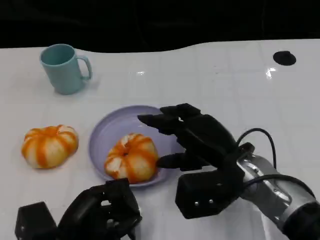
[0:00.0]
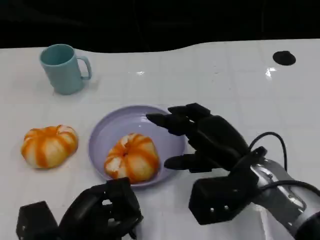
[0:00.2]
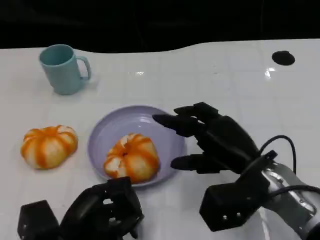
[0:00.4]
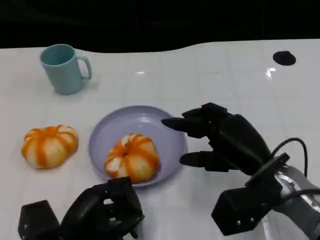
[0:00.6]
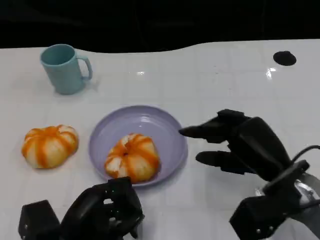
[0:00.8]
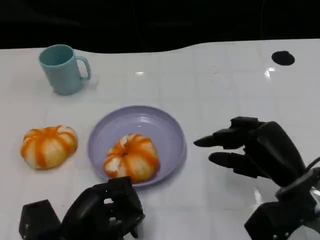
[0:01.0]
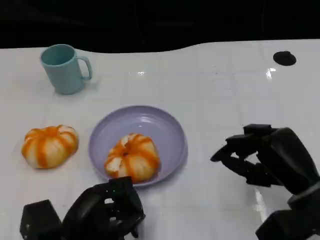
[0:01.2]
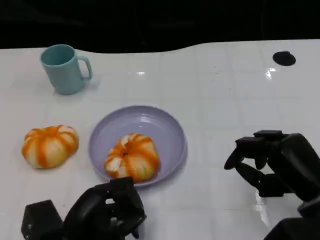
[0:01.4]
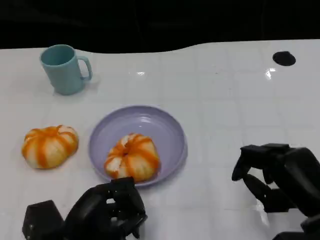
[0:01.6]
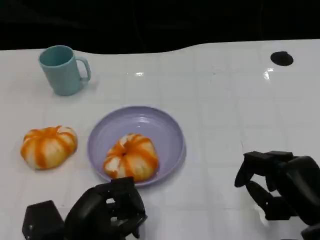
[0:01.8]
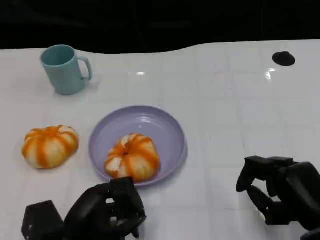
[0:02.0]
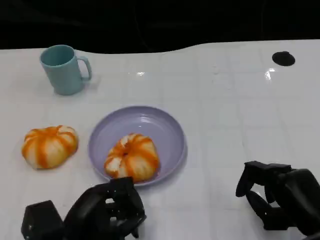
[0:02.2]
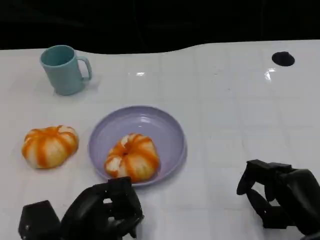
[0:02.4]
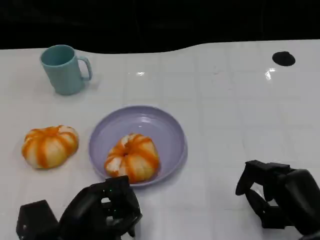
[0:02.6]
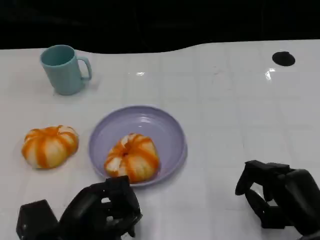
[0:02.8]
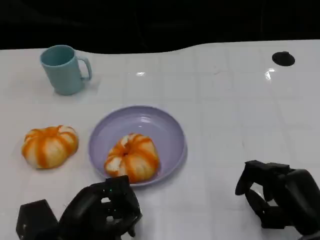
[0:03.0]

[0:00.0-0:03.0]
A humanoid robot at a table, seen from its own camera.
Task of the whole recording: Grasp the bread from the table and place it into the plate.
0:00.0 to 0:01.6: The right hand shifts some 15 cm to the right and backward.
0:01.6 to 0:03.0: The hands stay close to where they were, moving slightly.

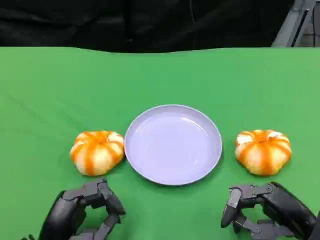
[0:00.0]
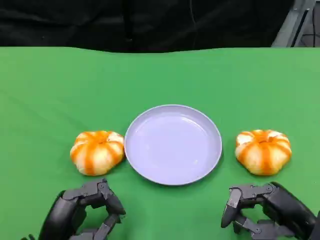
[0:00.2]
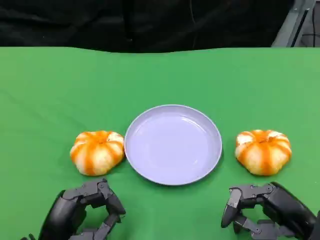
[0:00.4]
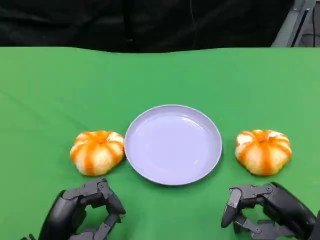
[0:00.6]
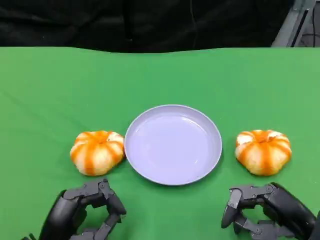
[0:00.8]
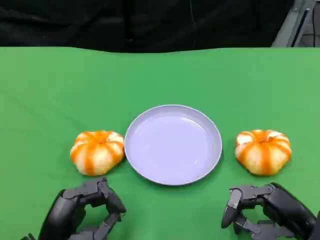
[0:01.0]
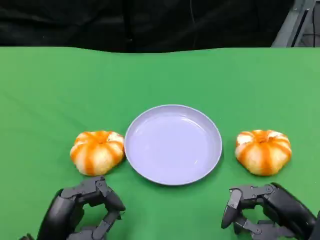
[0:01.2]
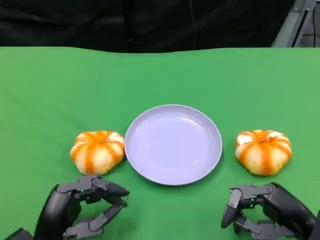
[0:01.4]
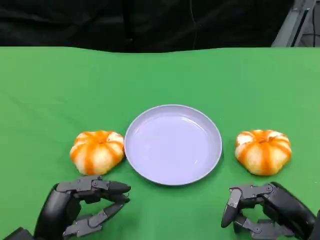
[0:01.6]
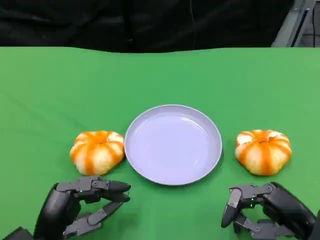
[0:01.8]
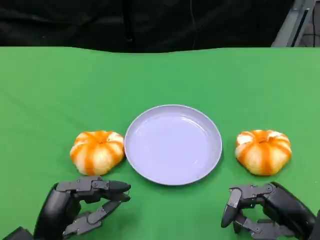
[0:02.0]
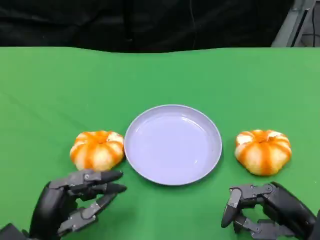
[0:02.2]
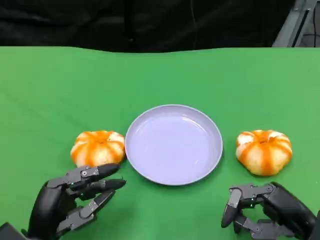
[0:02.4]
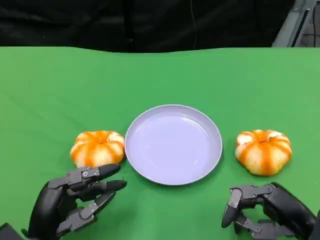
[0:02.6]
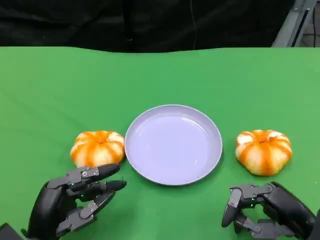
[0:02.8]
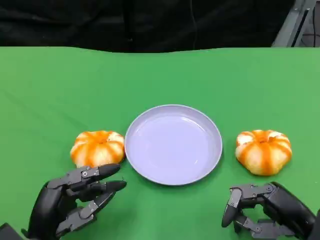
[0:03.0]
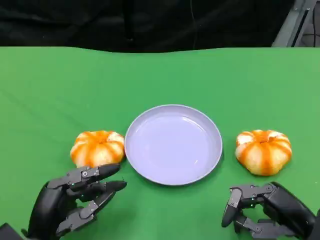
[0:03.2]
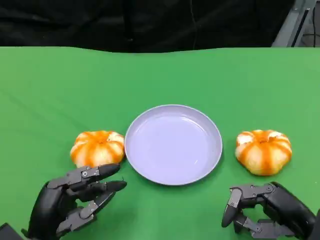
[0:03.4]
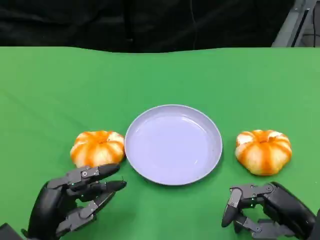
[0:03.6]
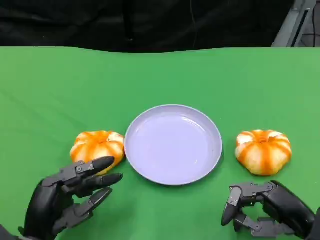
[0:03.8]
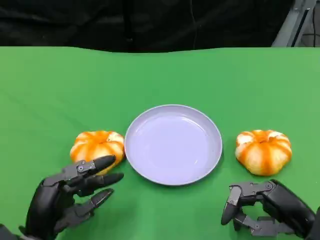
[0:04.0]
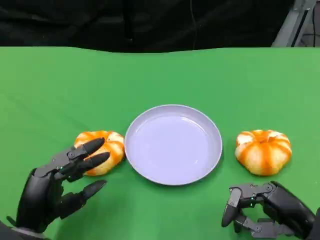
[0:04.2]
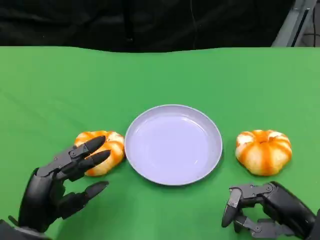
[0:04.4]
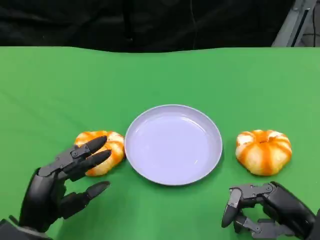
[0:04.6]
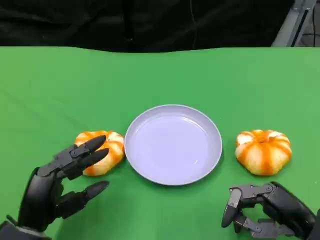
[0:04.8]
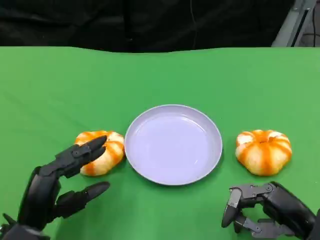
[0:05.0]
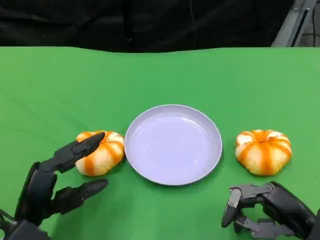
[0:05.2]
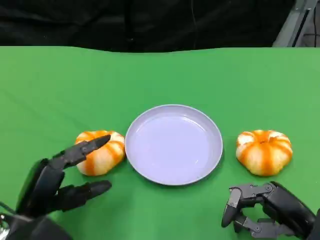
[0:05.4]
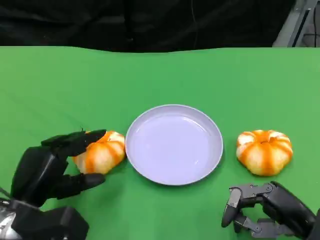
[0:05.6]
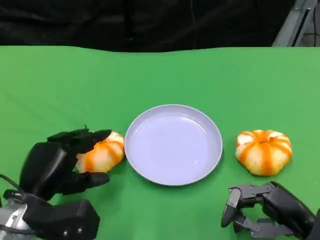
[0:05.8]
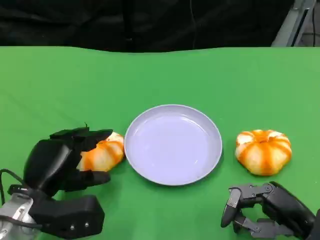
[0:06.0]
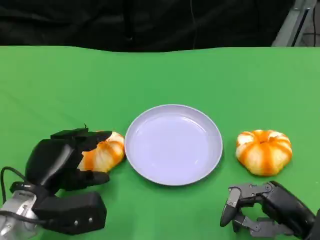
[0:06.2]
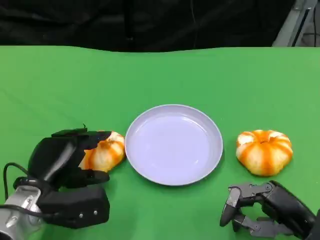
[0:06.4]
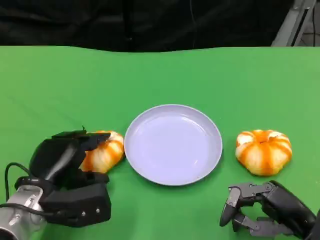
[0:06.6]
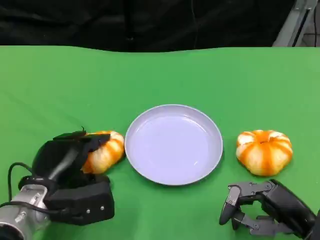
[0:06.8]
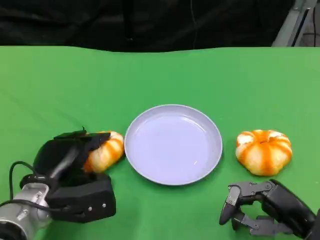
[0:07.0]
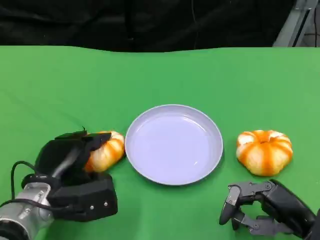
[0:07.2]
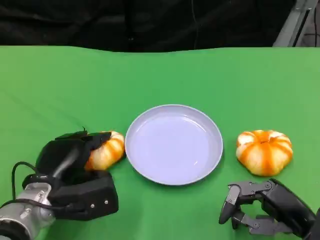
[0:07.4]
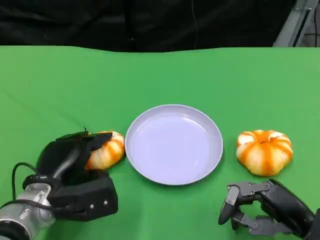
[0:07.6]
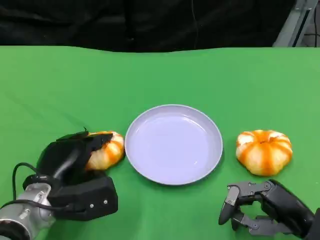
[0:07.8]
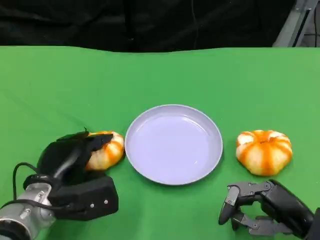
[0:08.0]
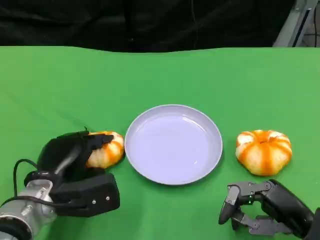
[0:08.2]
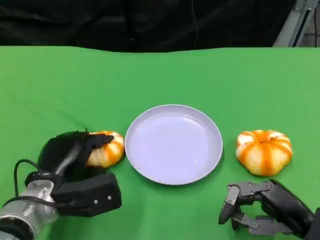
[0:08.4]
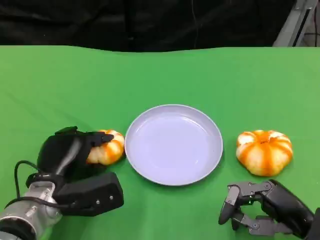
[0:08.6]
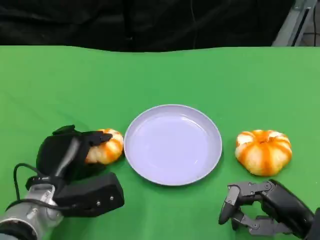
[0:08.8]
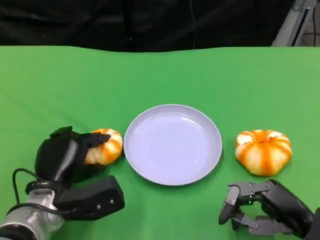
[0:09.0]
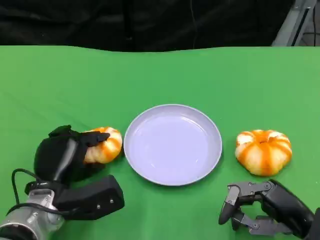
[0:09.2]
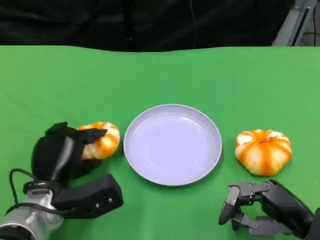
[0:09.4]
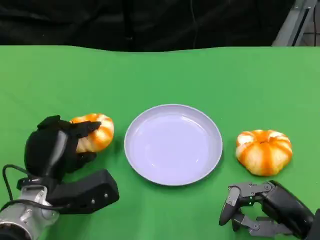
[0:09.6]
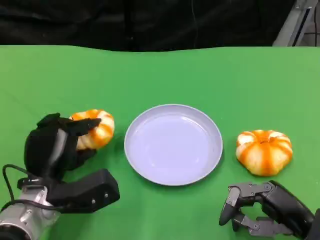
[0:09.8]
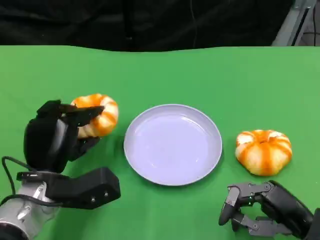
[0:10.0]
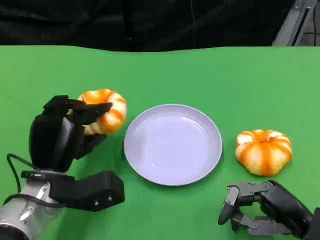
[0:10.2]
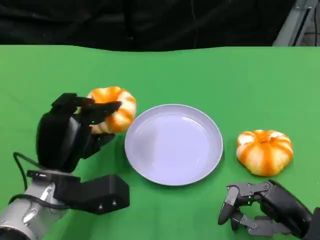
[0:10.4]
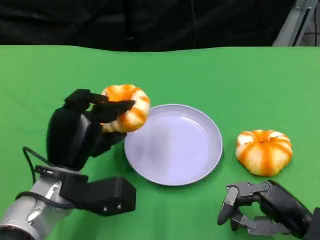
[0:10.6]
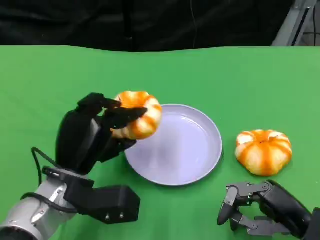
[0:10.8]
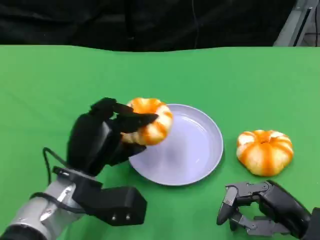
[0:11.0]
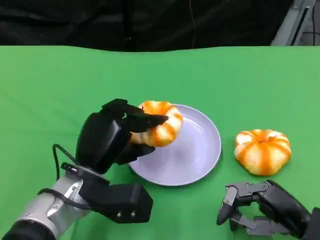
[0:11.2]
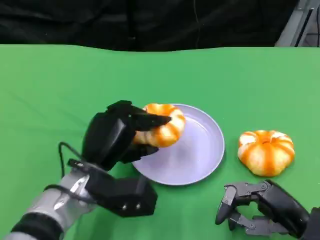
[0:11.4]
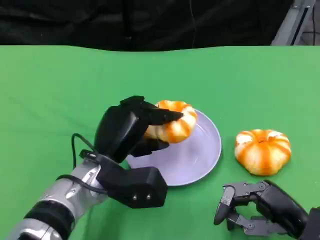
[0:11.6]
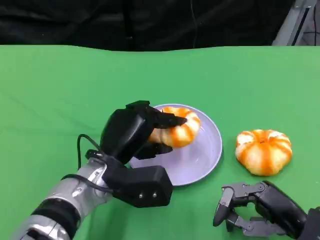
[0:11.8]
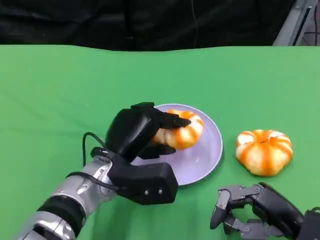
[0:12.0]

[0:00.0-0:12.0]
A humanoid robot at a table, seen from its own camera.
Task of the whole recording: Grasp the bread from the table and place it into the plate.
0:00.0 to 0:01.6: Both hands stay about where they are.
0:01.6 to 0:04.4: The hands move only a little.
0:04.4 to 0:06.0: The left hand heads forward, covering some 5 cm.
0:06.0 to 0:09.0: The hands move only a little.
0:10.4 to 0:12.0: The left hand shifts about 5 cm to the right.

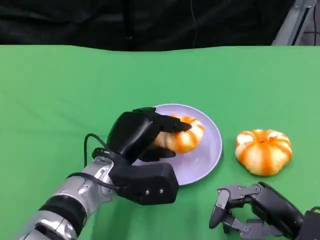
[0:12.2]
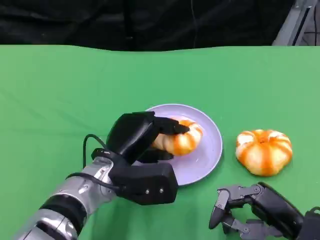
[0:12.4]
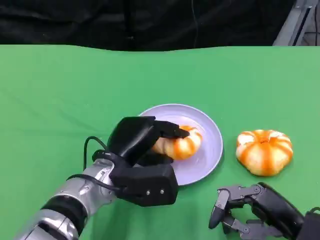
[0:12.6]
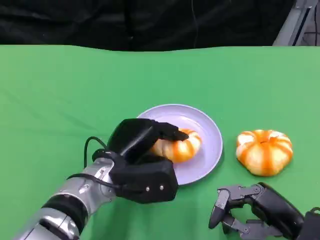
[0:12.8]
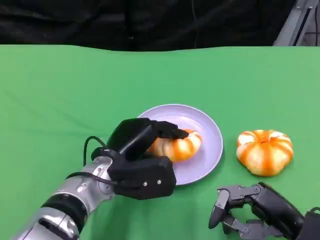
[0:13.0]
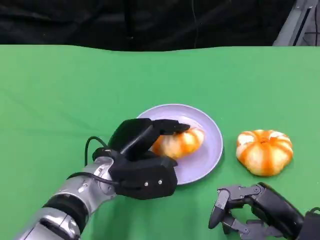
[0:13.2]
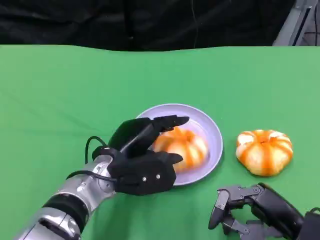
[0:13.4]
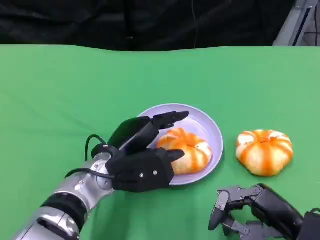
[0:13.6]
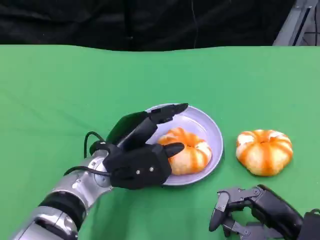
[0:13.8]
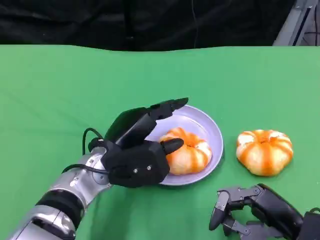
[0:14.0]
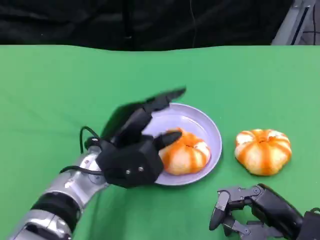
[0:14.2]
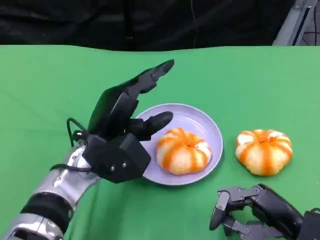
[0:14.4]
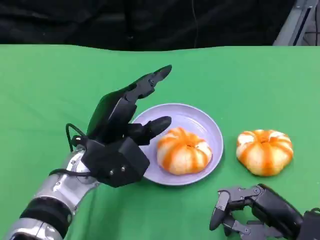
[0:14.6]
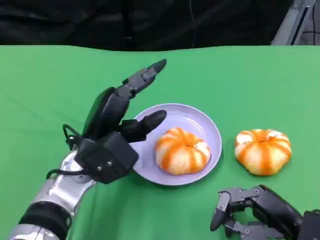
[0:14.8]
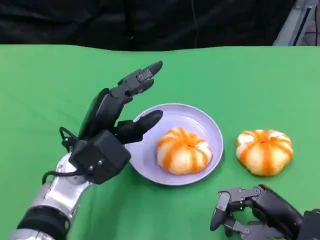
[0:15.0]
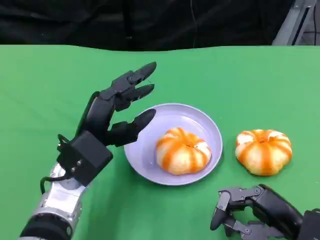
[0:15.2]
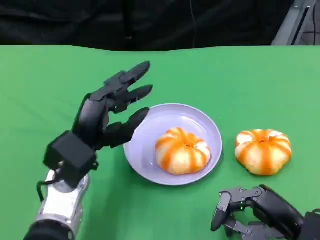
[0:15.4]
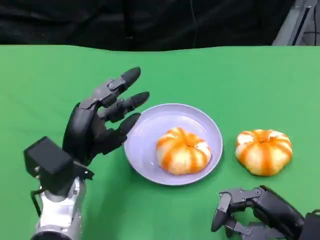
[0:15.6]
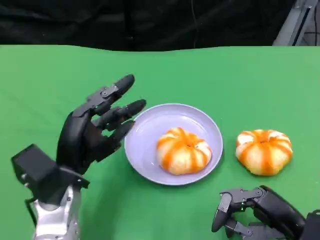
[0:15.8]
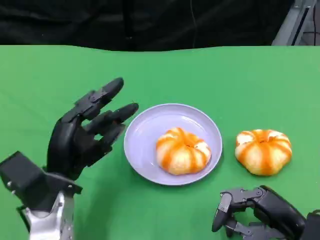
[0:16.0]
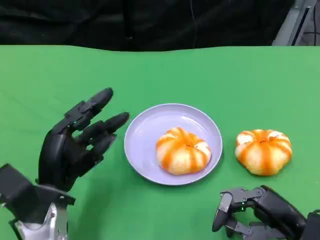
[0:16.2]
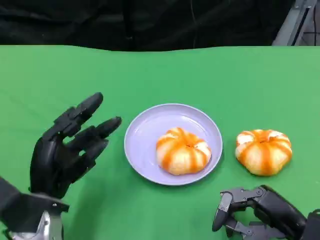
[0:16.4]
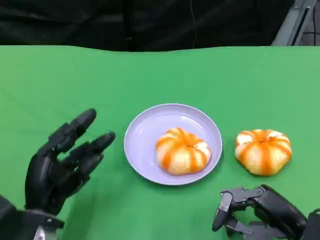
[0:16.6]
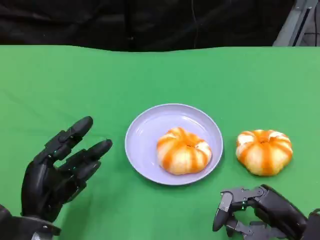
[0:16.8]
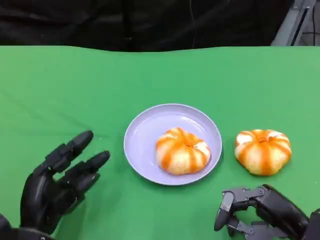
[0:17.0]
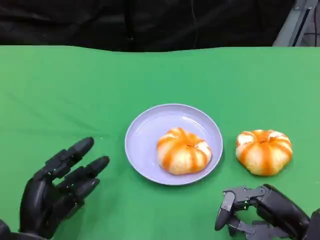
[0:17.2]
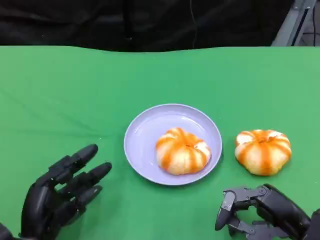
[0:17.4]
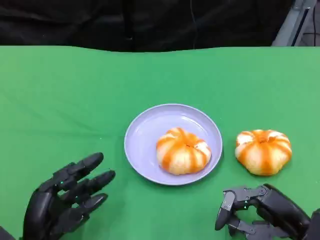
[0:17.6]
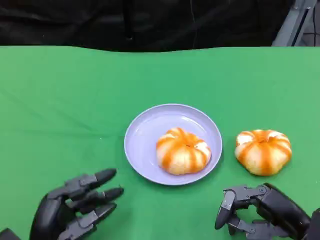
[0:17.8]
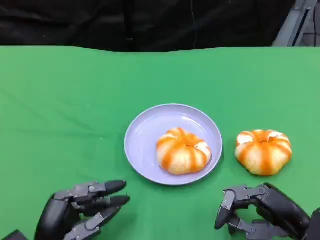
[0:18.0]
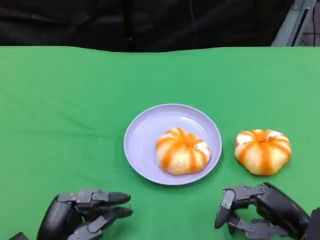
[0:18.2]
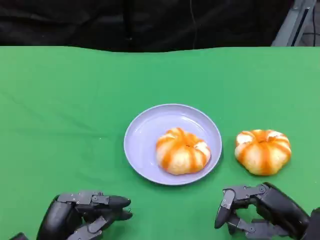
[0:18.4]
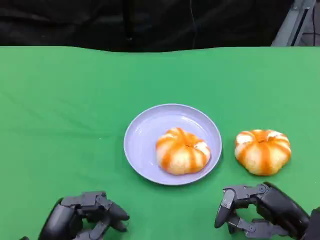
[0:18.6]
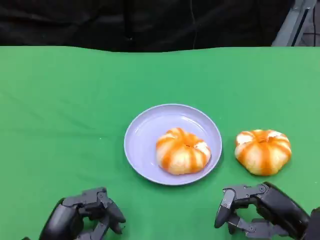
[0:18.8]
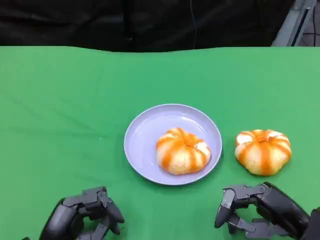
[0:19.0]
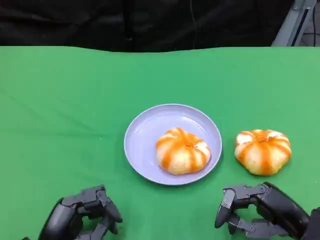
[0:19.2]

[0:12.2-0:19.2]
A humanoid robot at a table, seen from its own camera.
Task of the whole recording: Grasp the bread from the table and place it into the plate.
0:12.2 to 0:13.6: There are only small adjustments of the hands.
0:15.0 to 0:16.4: The left hand heads to the left and backward, covering about 10 cm.
0:16.4 to 0:17.8: The left hand heads backward, covering about 5 cm.
0:17.8 to 0:19.2: The hands stay close to where they were, moving slightly.
